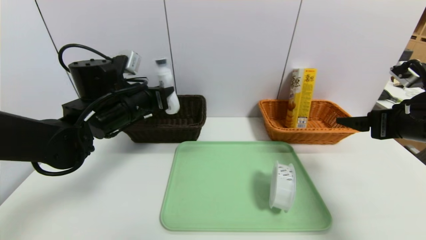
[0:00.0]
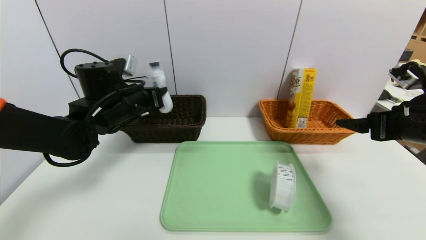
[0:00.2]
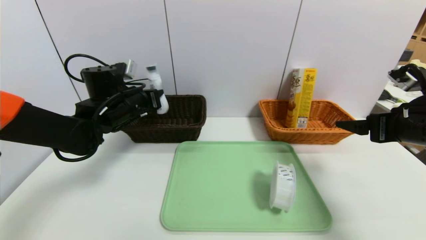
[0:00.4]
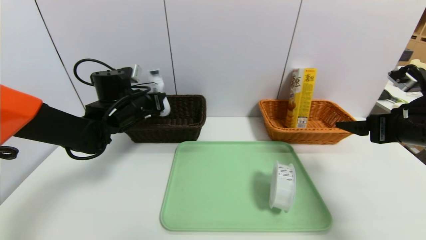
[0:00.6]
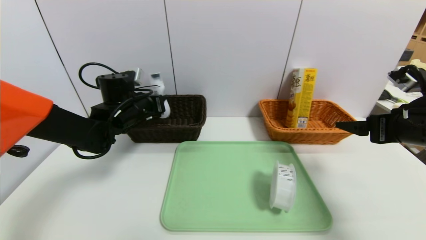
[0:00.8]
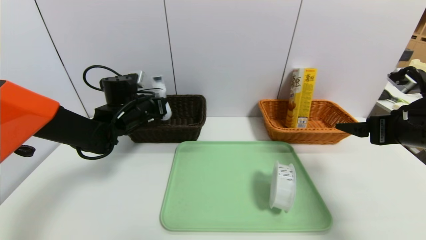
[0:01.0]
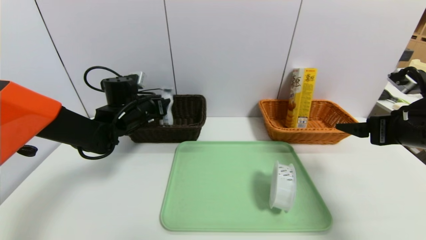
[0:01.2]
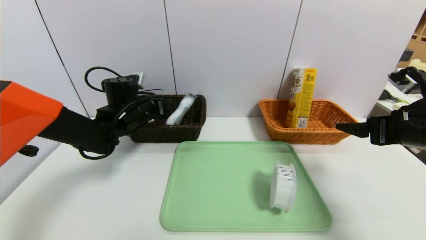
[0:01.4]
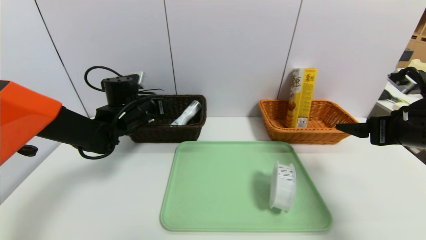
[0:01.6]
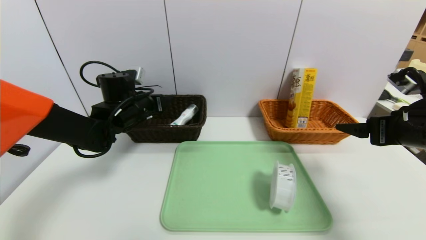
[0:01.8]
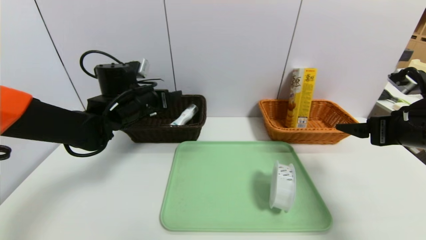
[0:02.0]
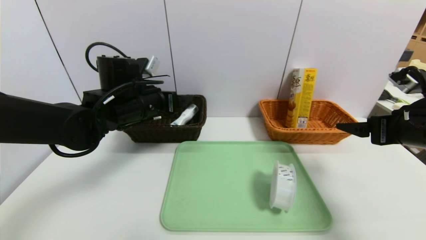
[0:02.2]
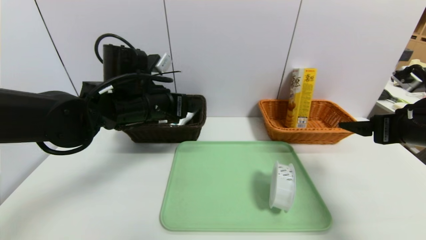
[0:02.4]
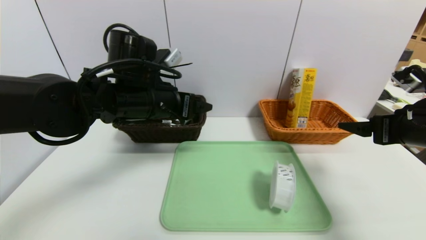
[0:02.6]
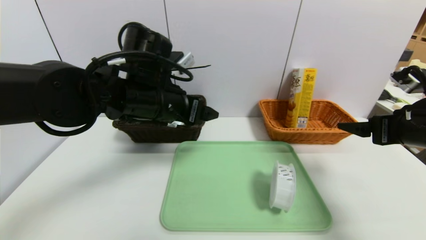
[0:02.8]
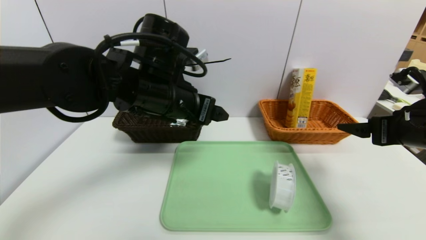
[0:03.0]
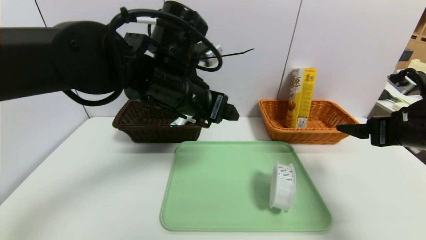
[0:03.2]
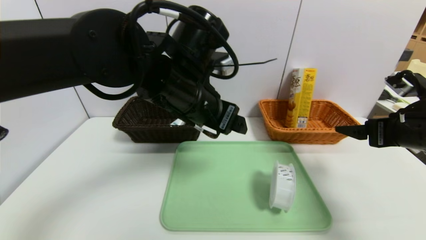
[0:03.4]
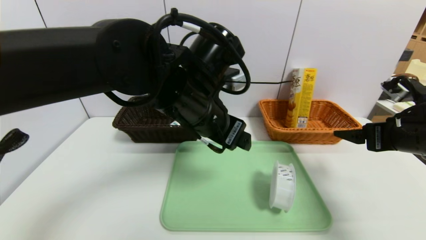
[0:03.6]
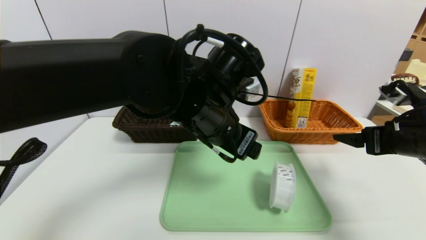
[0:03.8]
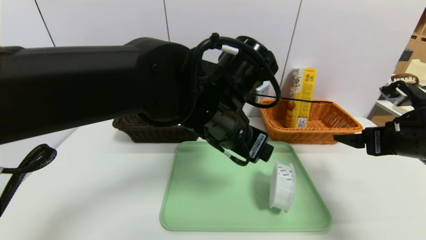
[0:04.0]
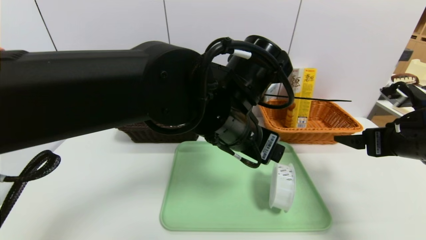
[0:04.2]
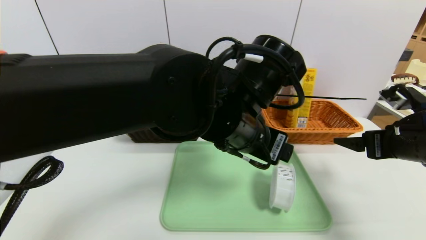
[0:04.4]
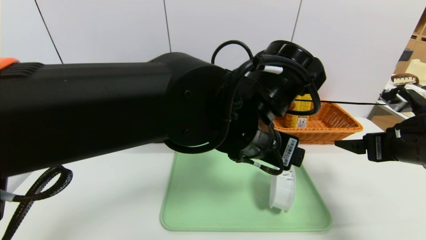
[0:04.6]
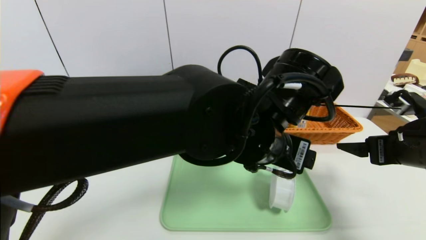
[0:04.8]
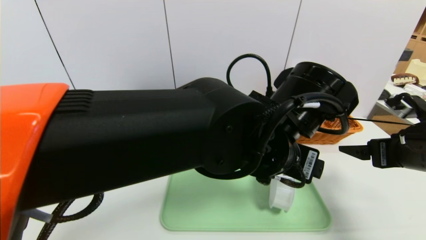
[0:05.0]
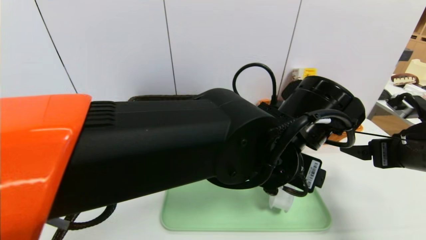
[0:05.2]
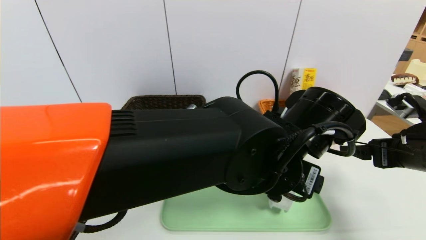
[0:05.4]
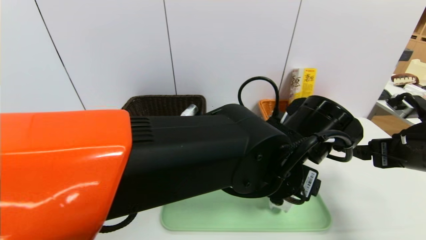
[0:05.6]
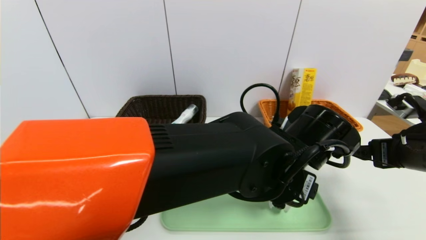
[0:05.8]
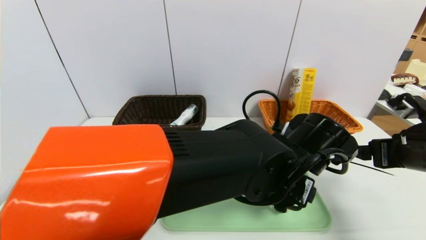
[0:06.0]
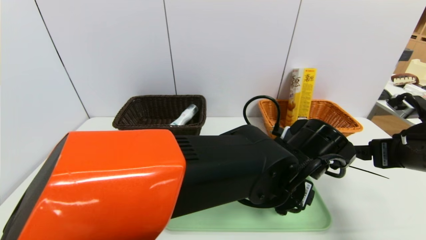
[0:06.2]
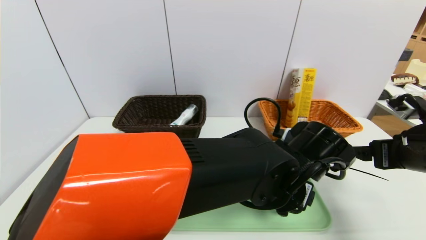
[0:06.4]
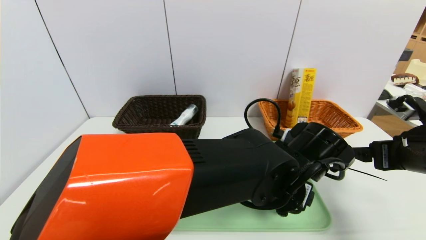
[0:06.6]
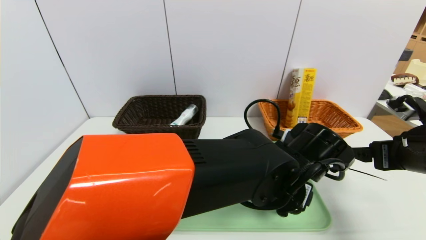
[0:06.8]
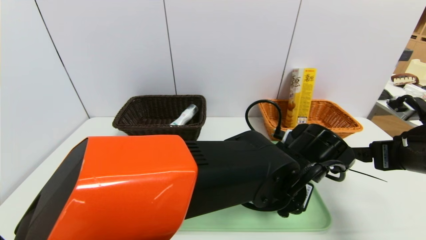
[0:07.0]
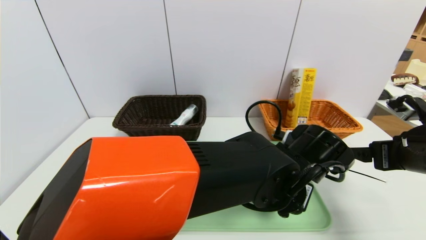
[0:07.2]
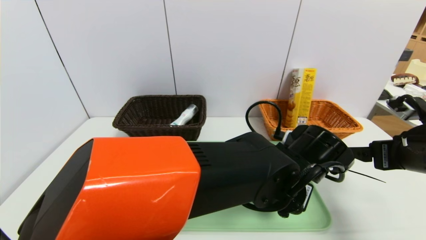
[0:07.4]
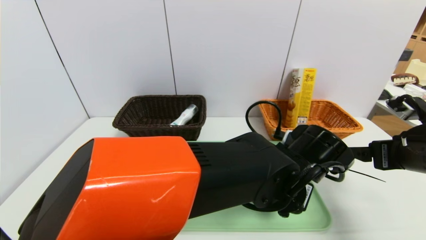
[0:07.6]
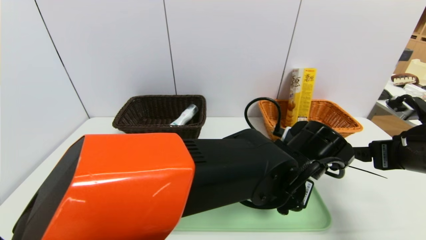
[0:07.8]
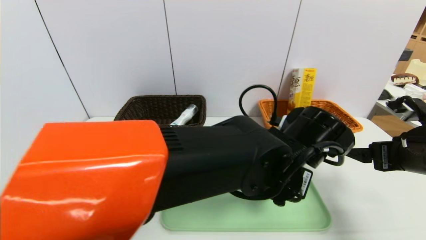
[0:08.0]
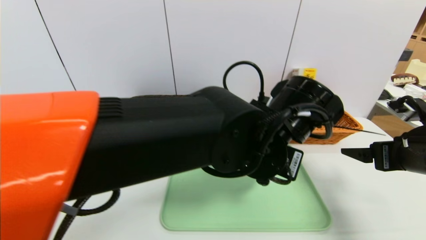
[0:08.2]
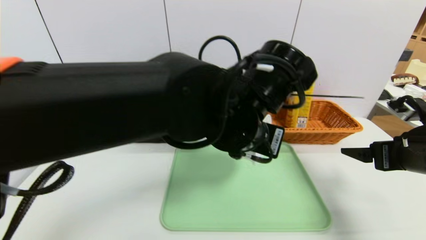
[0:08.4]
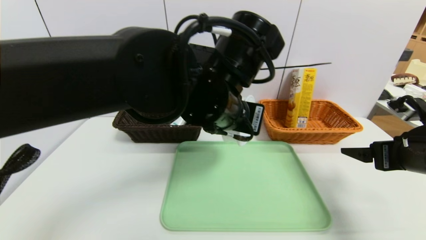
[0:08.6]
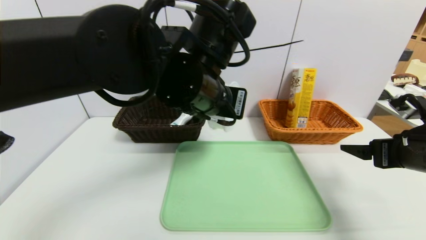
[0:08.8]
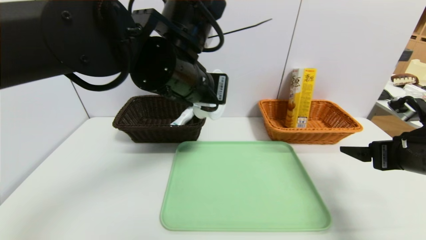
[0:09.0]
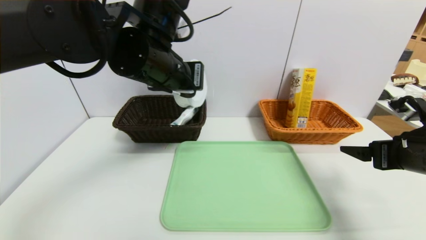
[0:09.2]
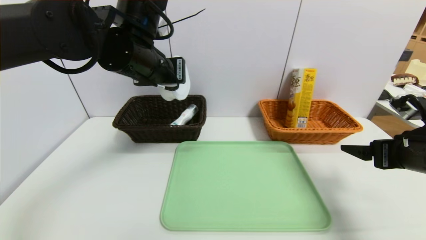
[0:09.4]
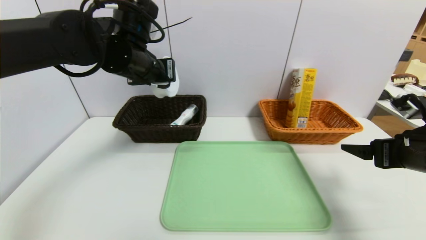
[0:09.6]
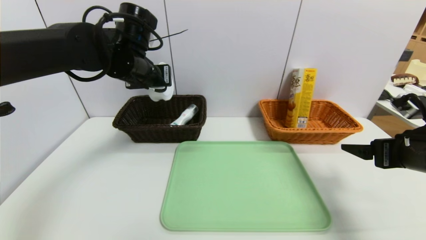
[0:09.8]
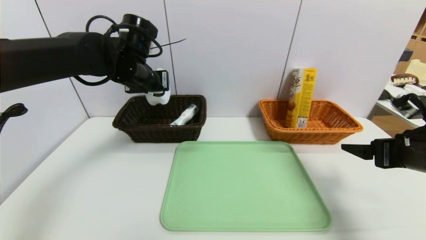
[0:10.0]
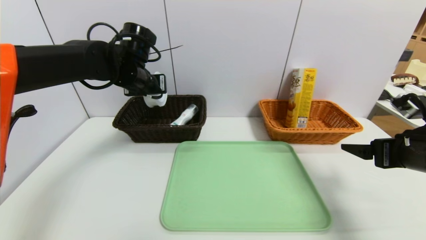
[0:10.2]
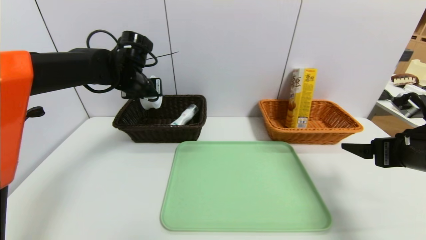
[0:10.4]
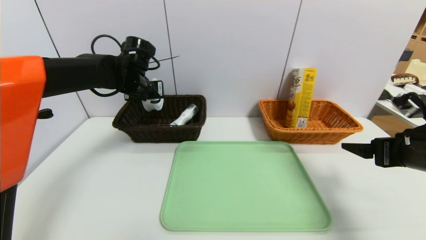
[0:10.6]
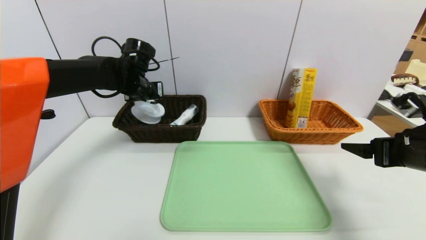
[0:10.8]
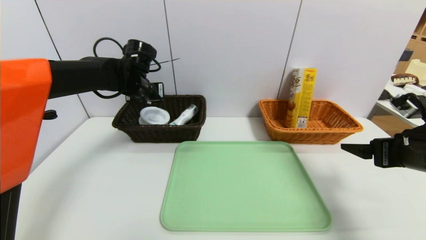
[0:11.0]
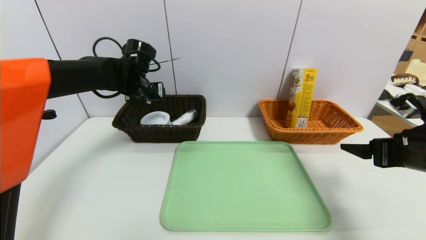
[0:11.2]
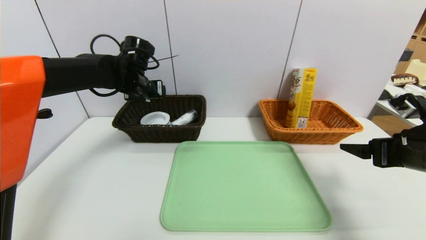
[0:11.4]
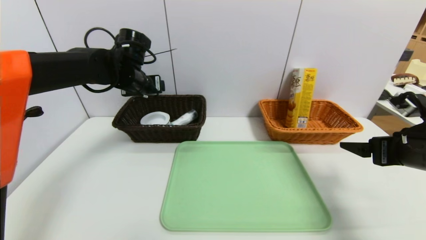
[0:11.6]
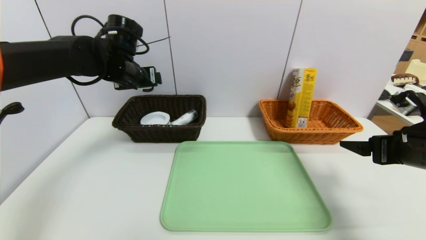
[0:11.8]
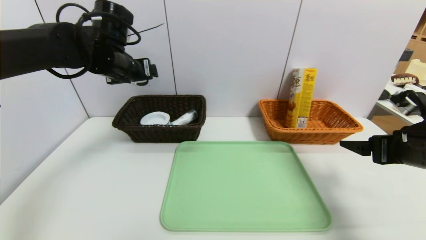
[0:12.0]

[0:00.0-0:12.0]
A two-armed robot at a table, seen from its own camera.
Task of the whole recording: place the food in the right basket with the right gripper, and place the non food items in the left basket with the left gripper.
Step, 0:01.6 to 0:11.0: Grasp the tape and put it in the left basket.
0:00.0 to 0:01.6: The left gripper is displaced forward and downward by about 10 cm, and opens up.
0:01.6 to 0:03.0: The left gripper moves backward, to the right and upward, roughly 20 cm.
0:03.0 to 0:04.4: The left gripper travels to the right and backward by some 10 cm.
0:04.4 to 0:06.0: The left gripper heads downward and to the right, covering roughly 10 cm.
0:06.0 to 0:07.6: The left gripper closes up.
0:07.6 to 0:09.0: The left gripper travels to the left and upward by some 20 cm.
0:09.0 to 0:10.4: The left gripper shifts some 20 cm forward and to the left.
0:10.4 to 0:12.0: The left gripper ends up some 5 cm from where it was, and opens up.

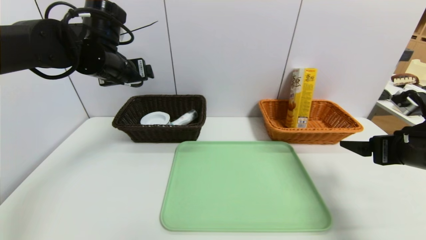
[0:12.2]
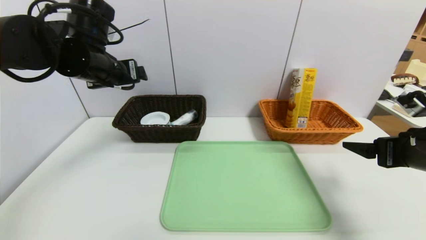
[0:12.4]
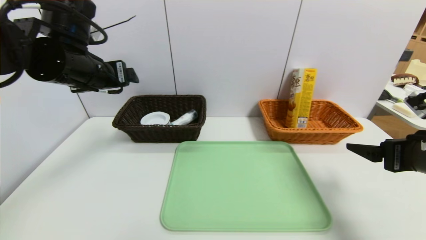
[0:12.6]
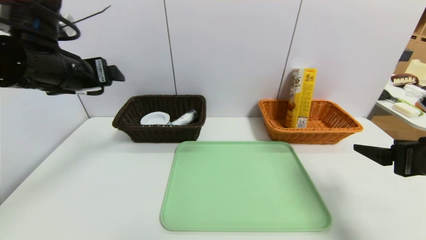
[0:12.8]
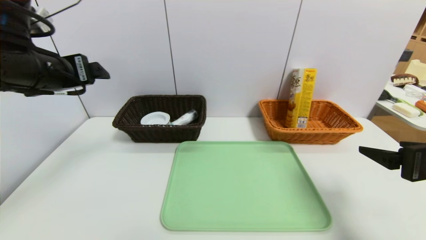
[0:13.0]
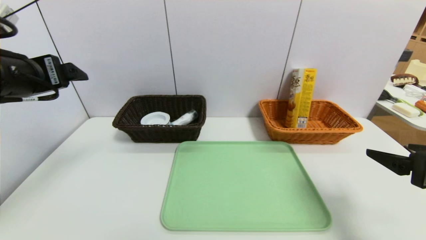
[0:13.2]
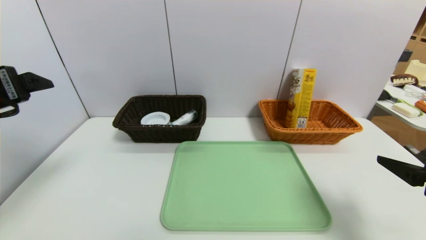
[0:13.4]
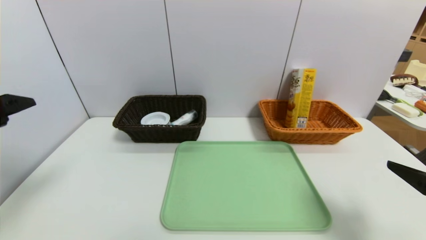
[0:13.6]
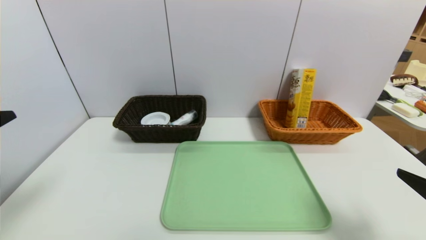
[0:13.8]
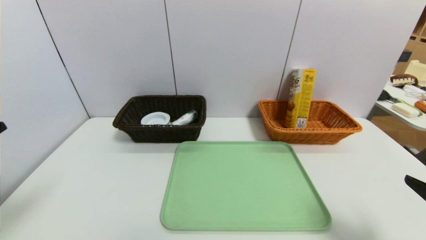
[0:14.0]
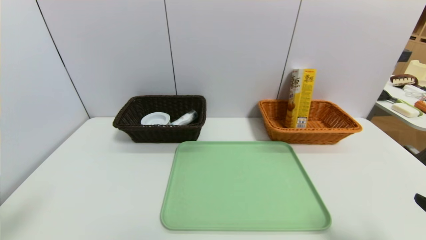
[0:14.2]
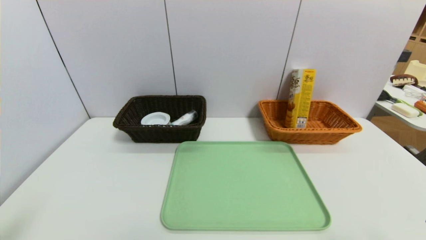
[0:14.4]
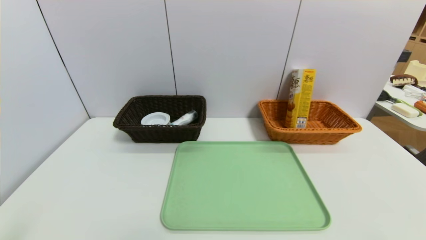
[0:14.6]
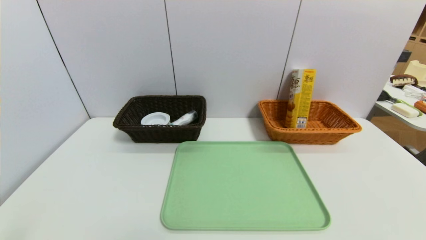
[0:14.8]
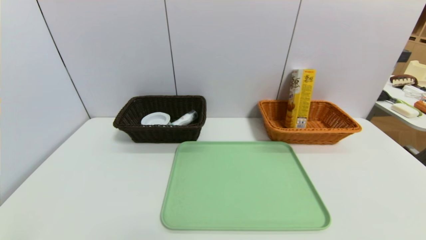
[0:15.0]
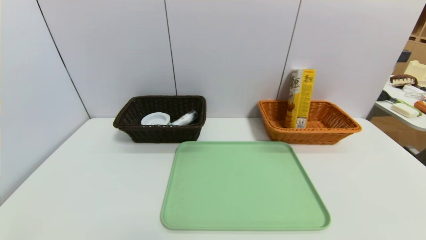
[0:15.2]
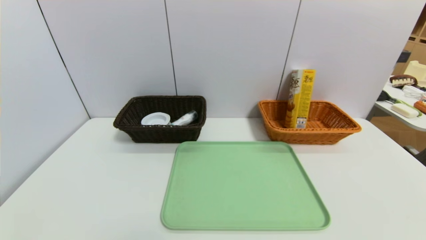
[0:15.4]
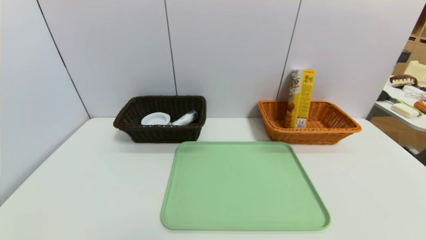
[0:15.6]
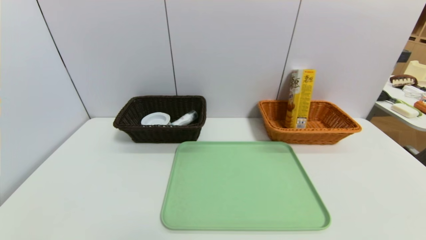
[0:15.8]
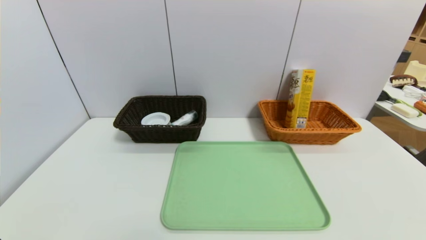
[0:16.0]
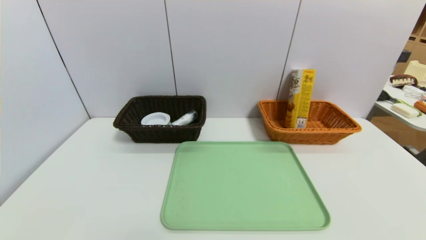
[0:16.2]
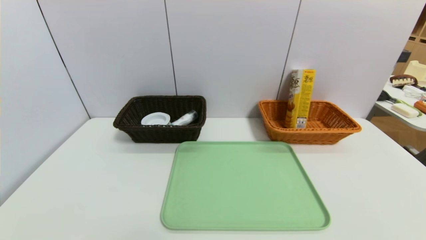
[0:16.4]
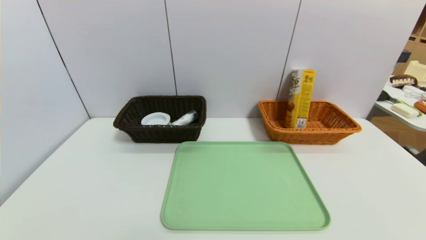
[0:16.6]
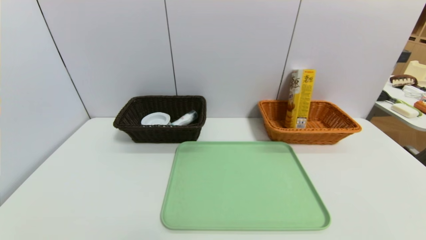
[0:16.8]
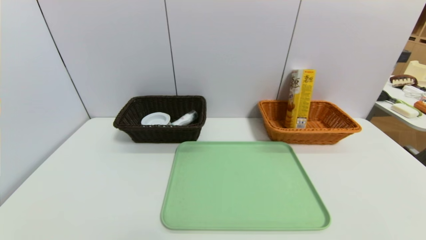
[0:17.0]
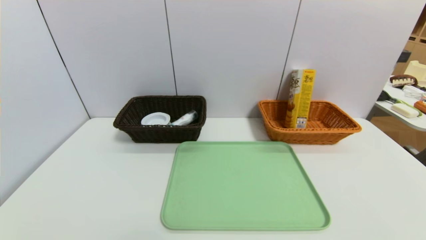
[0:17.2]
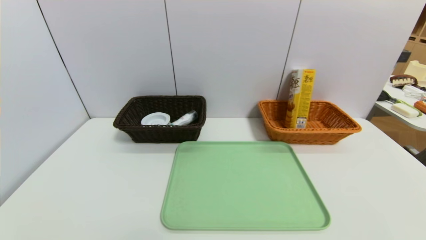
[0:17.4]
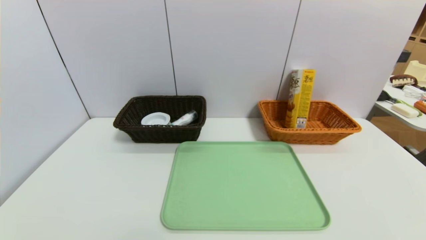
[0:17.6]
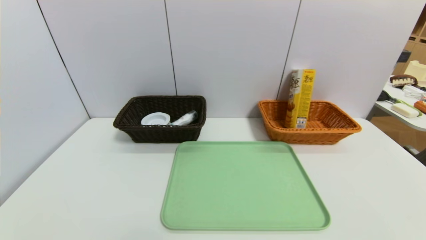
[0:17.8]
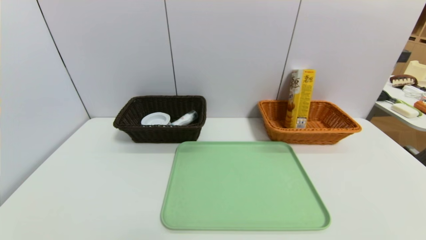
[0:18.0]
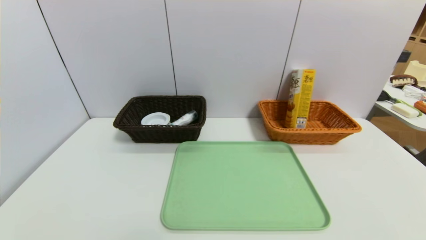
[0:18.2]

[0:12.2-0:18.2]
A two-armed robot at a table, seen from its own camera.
Task of the whole recording: place the food in the right basket with the right gripper, and place the non food items in the left basket with the left gripper.
0:12.2 to 0:13.8: The right gripper shifts about 15 cm backward; the left gripper travels backward by about 25 cm.
0:13.8 to 0:15.2: The right gripper shifts about 15 cm backward. The left gripper goes about 20 cm backward and downward.
